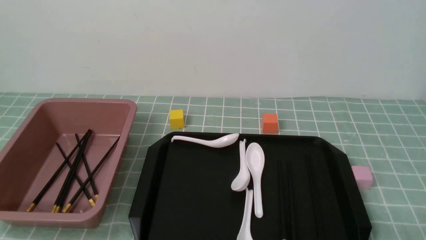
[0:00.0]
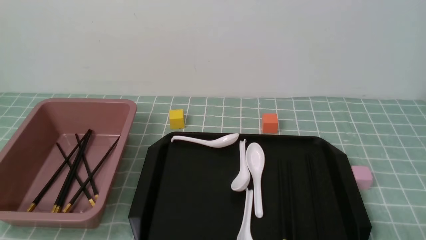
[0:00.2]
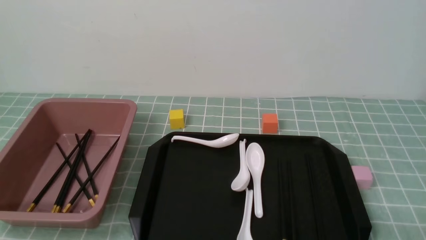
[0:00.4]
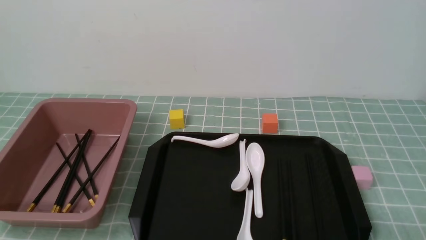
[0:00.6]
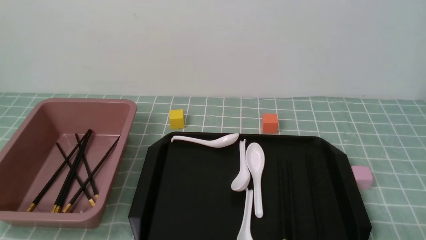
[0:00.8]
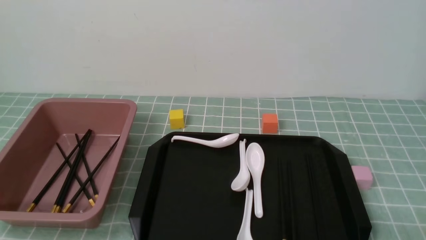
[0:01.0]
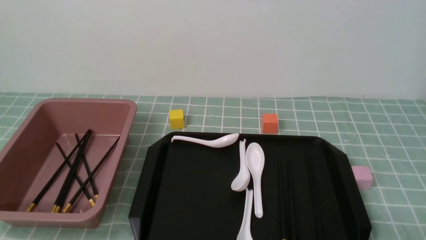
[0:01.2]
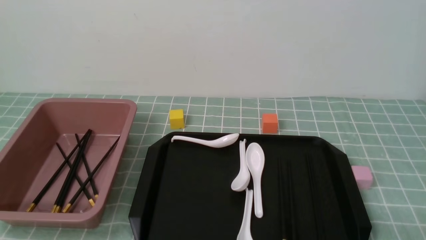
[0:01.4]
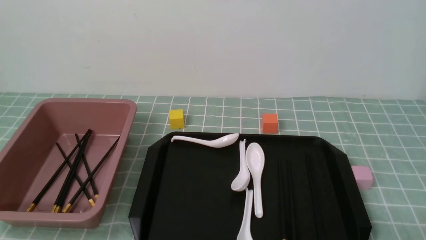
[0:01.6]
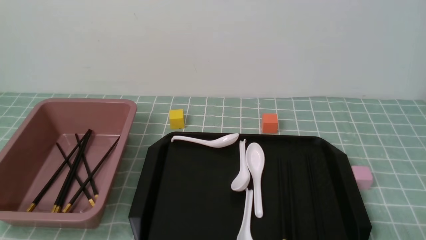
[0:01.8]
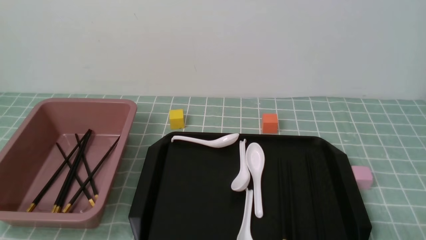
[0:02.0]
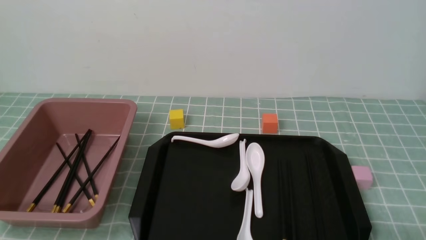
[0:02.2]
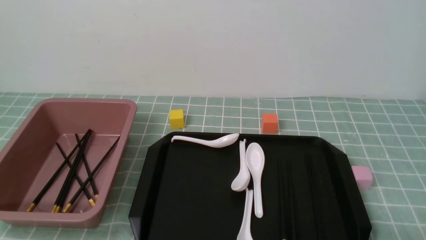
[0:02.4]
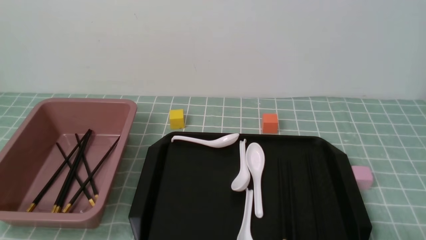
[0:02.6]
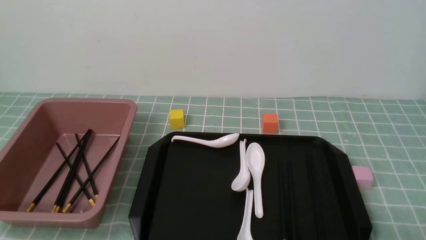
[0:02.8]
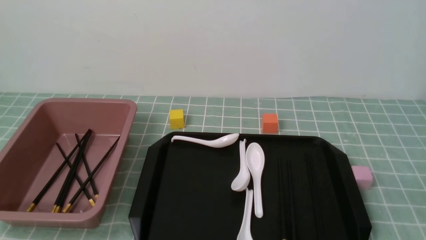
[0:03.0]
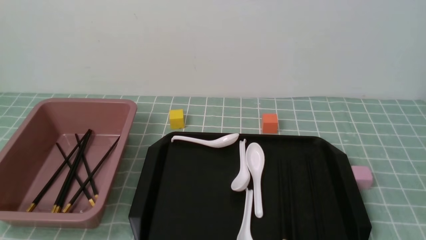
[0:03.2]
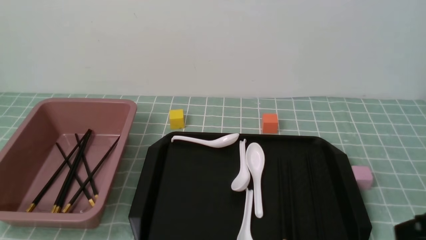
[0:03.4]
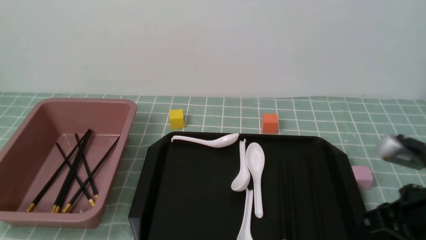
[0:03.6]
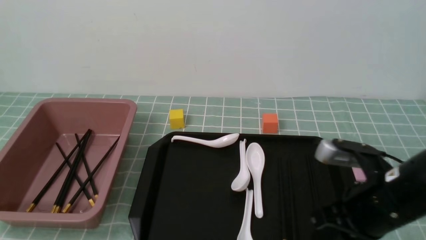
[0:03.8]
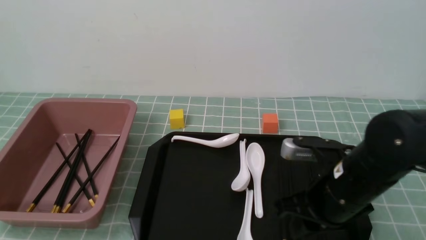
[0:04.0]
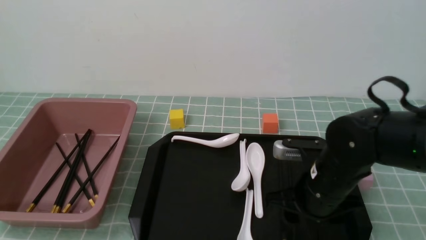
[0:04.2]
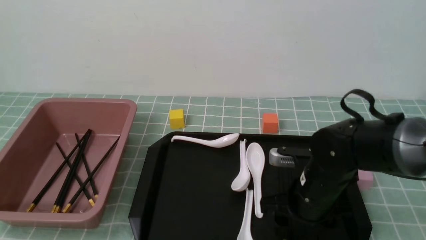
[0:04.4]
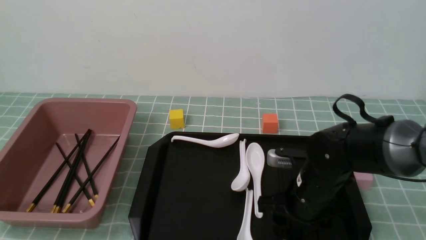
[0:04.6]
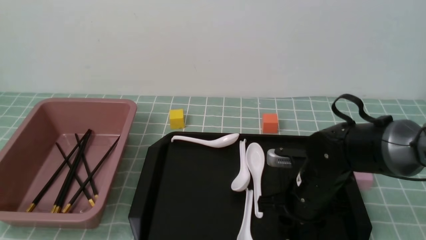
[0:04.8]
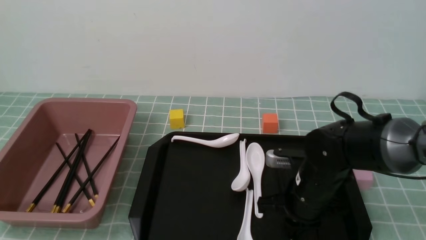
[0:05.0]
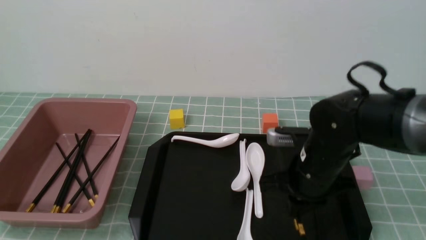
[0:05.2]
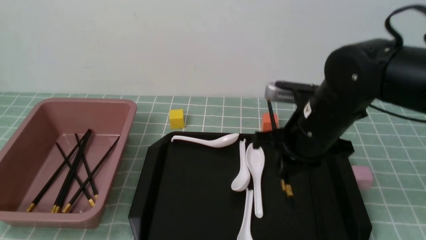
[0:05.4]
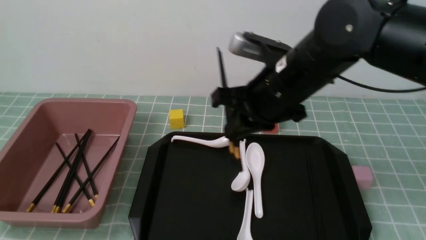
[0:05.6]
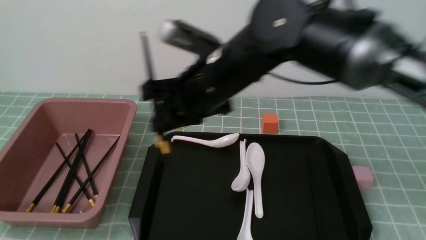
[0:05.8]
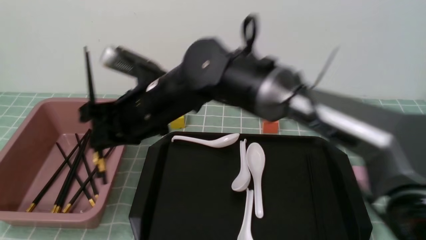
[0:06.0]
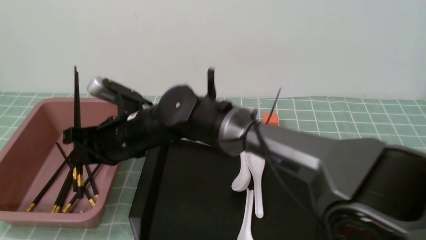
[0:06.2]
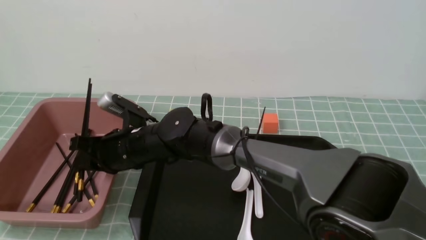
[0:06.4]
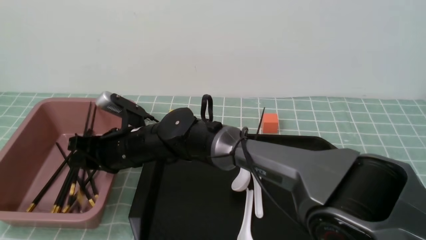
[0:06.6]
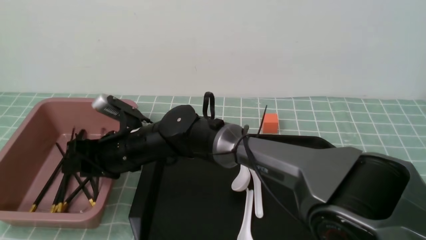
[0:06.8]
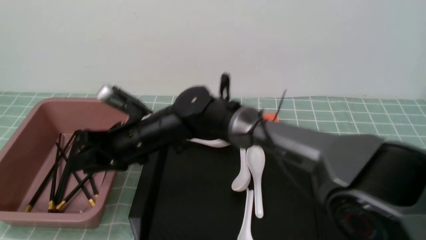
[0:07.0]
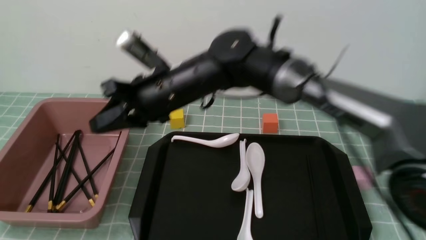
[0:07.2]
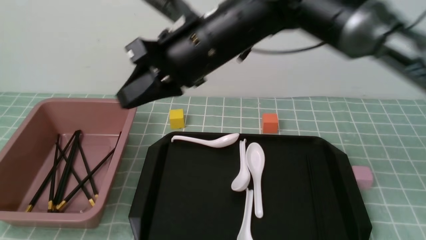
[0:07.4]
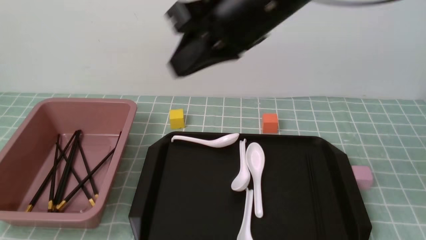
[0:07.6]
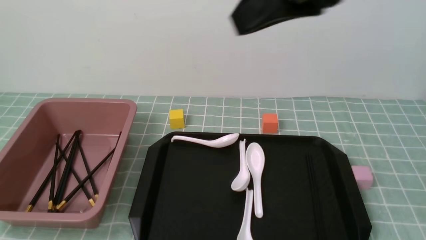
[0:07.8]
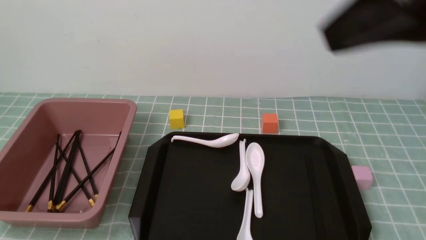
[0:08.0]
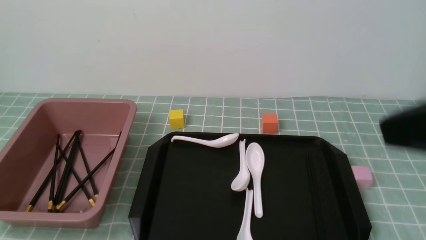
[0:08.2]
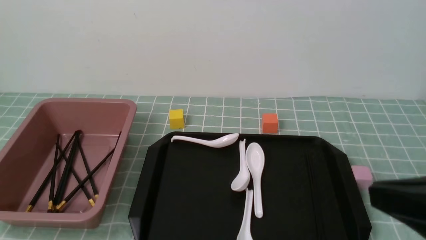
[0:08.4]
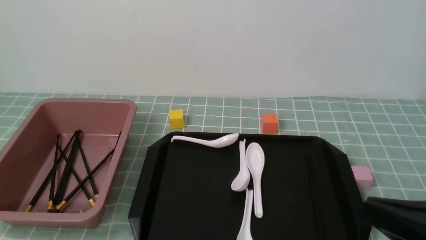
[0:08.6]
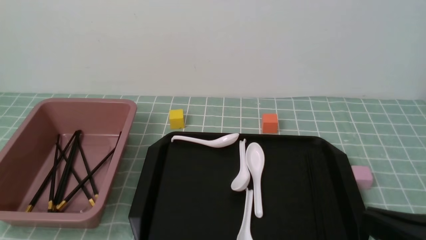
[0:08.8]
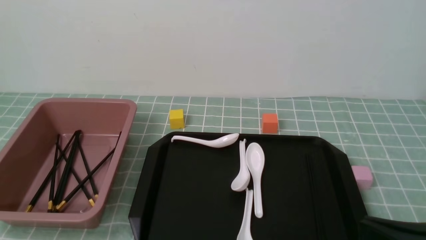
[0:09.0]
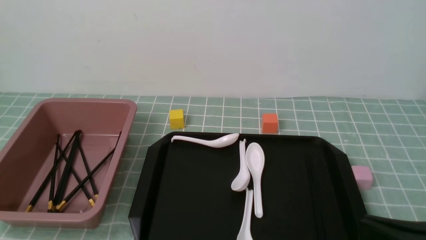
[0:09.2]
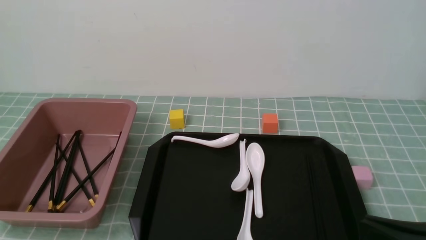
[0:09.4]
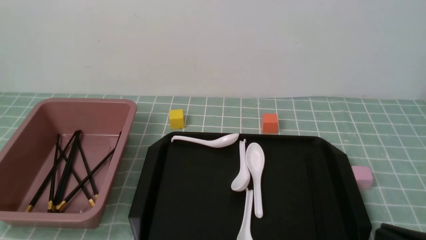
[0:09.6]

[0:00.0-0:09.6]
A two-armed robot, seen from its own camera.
Step, 0:00.0 to 0:05.2: use the right arm to grab a pair of chopsticks.
Step, 0:05.6 to 0:07.0: use the right arm to put the chopsticks into the lunch box.
0:00.0 to 0:01.6: Both grippers stay about where they are.
0:03.2 to 0:04.8: The right gripper goes approximately 30 cm forward, downward and to the left, and opens up.
0:04.8 to 0:06.4: The right gripper travels to the left by roughly 25 cm.
0:06.4 to 0:08.0: The right gripper moves upward, to the right and backward, some 50 cm.
0:08.0 to 0:09.6: The right gripper moves downward, roughly 25 cm.

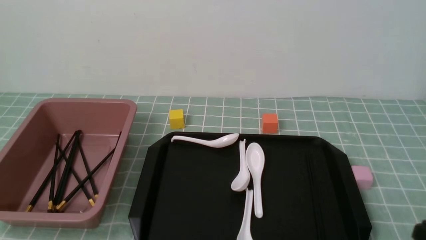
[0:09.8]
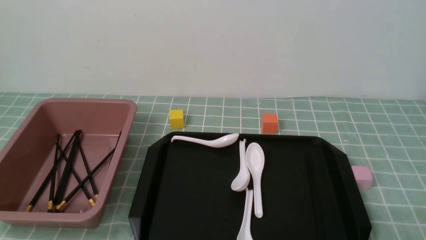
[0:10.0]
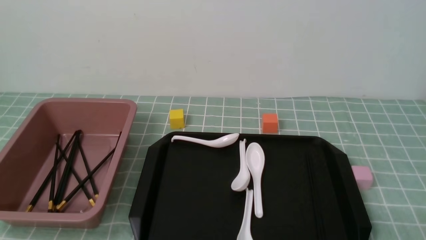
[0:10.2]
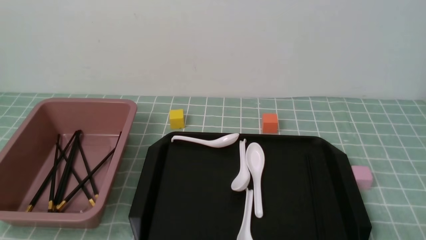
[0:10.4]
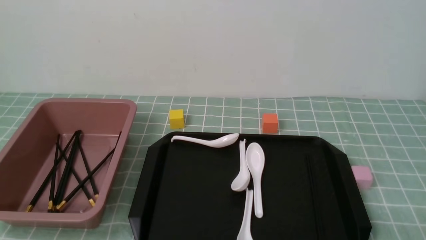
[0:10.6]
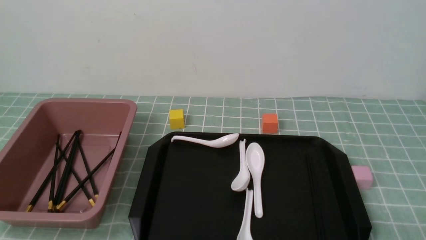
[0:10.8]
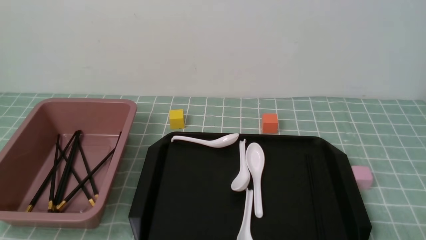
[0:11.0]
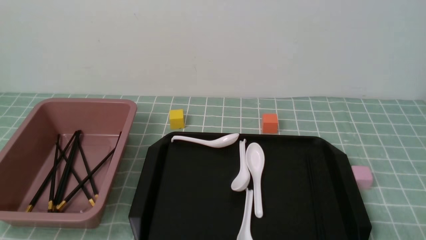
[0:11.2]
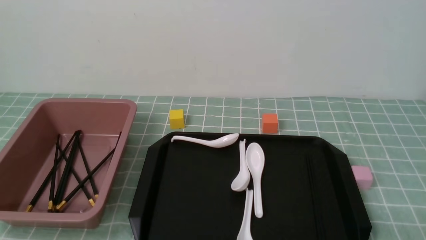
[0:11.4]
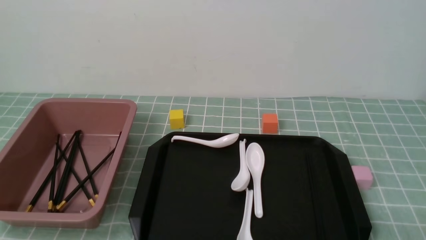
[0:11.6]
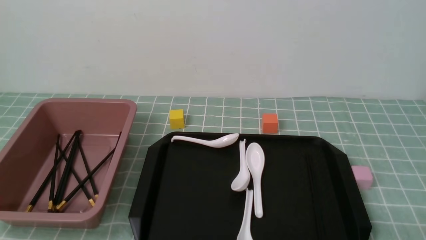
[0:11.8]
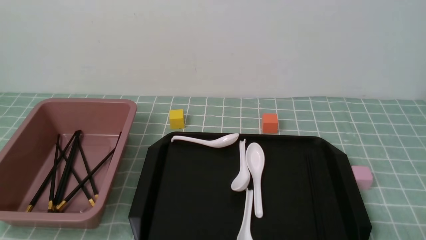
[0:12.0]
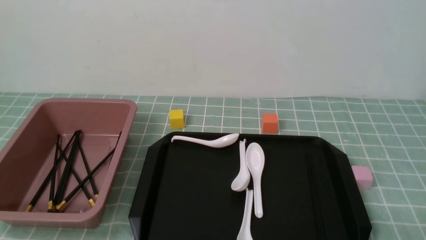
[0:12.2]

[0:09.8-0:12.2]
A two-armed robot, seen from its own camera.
0:11.0 to 0:12.2: Both grippers stay about where they are.
